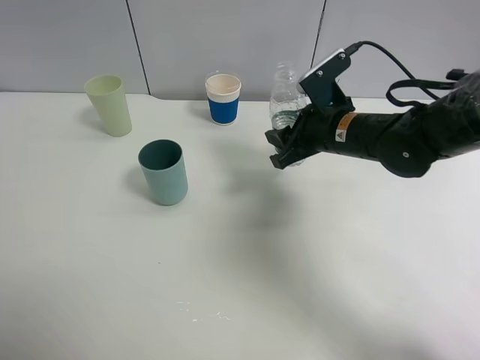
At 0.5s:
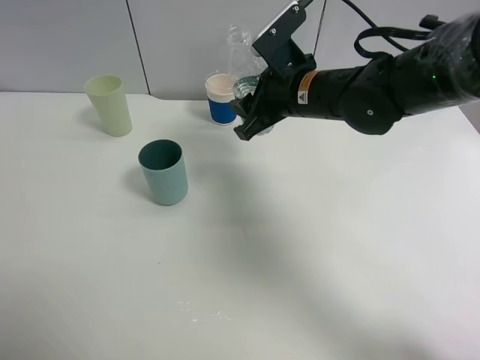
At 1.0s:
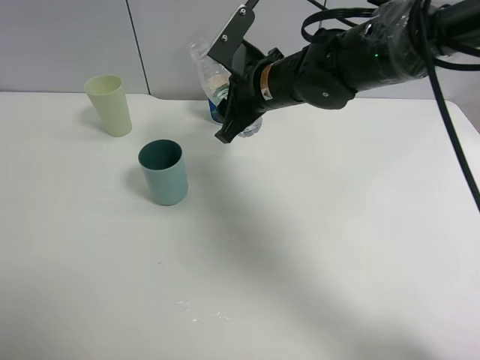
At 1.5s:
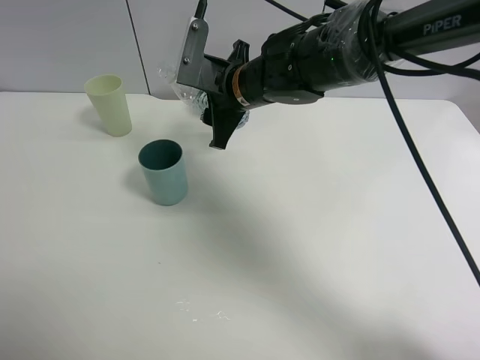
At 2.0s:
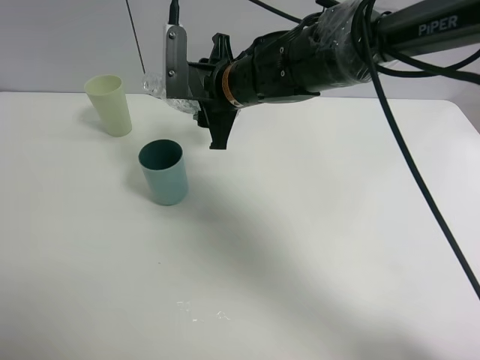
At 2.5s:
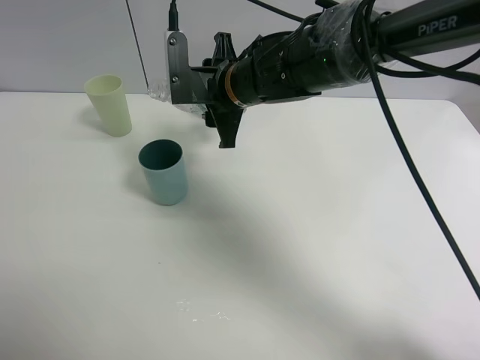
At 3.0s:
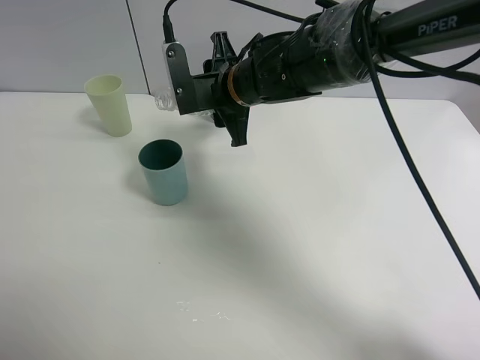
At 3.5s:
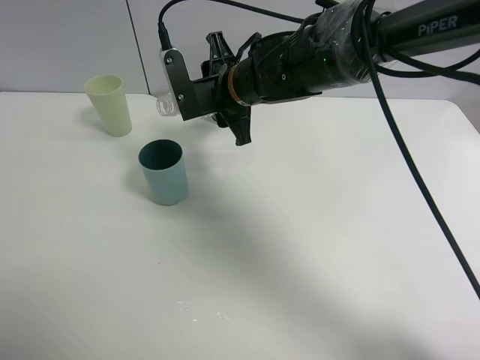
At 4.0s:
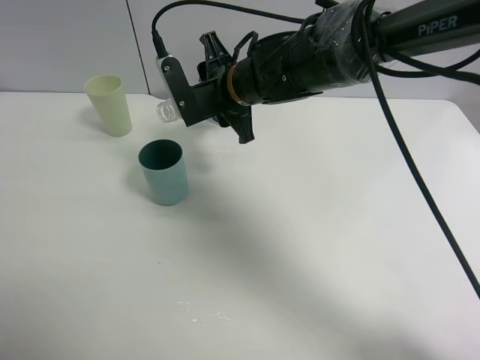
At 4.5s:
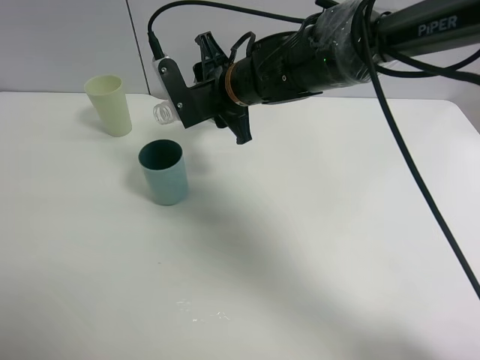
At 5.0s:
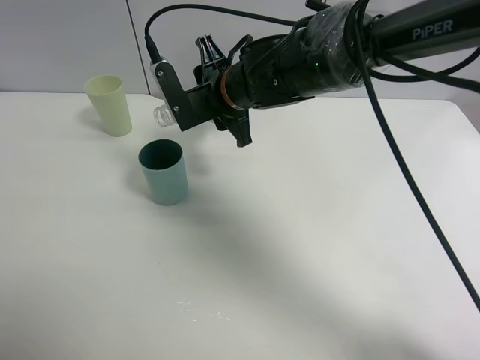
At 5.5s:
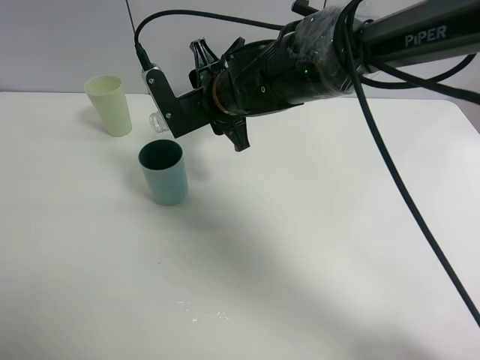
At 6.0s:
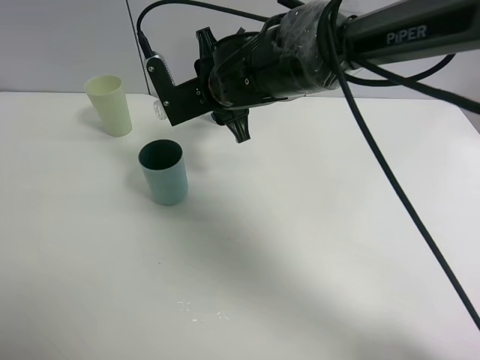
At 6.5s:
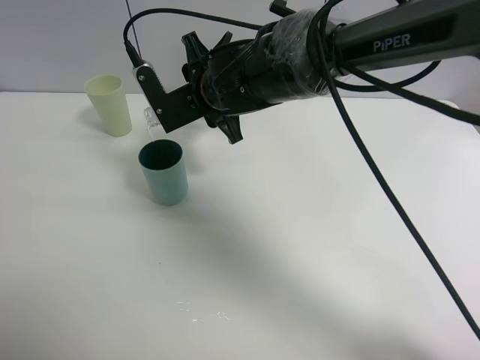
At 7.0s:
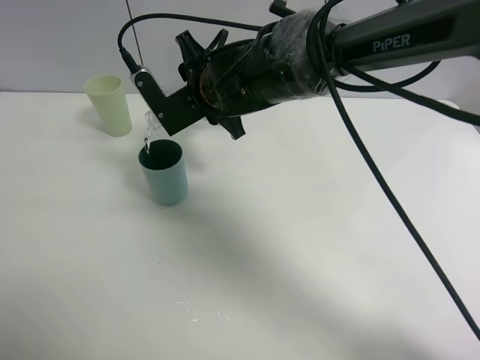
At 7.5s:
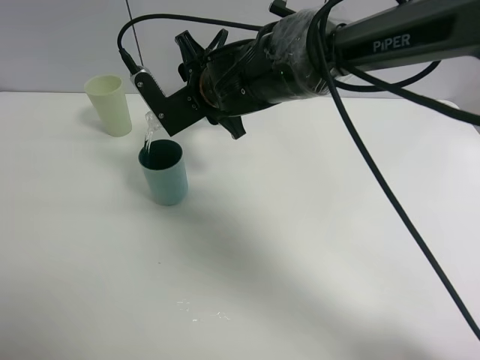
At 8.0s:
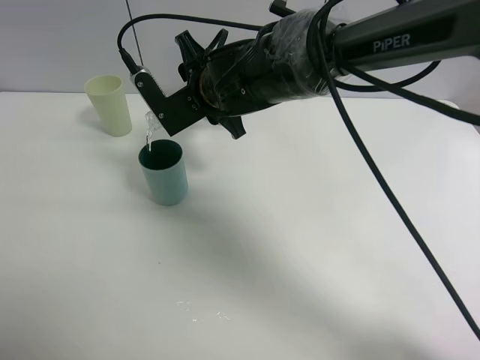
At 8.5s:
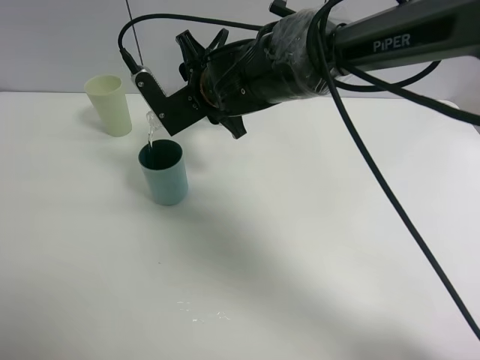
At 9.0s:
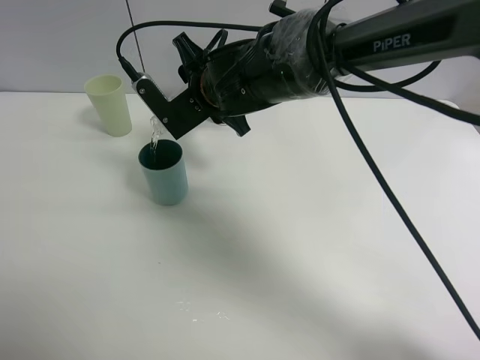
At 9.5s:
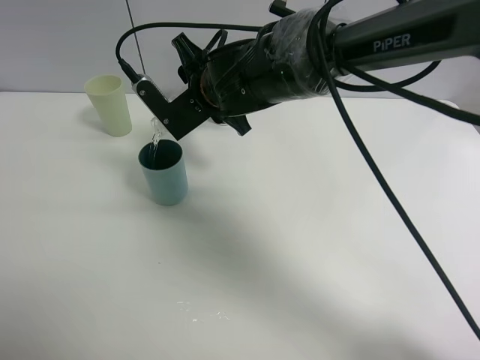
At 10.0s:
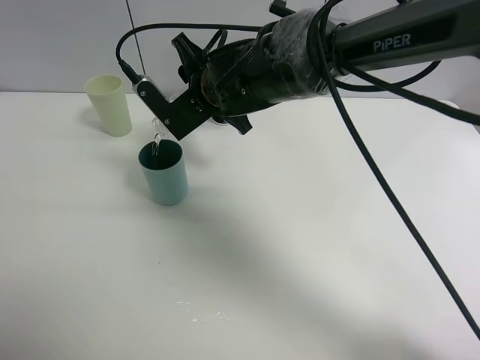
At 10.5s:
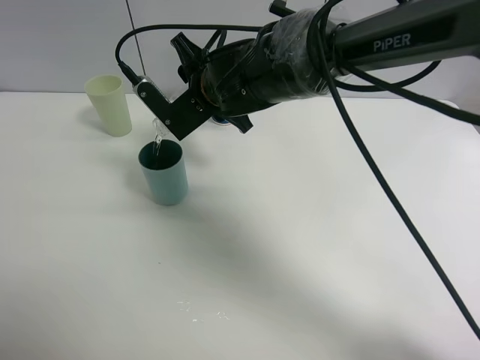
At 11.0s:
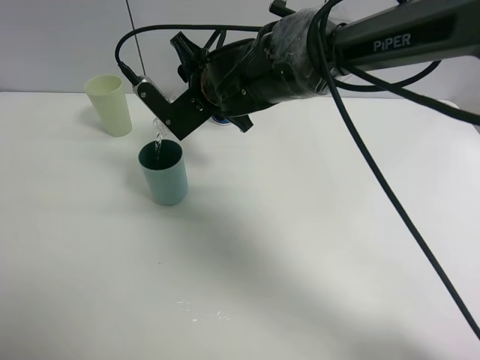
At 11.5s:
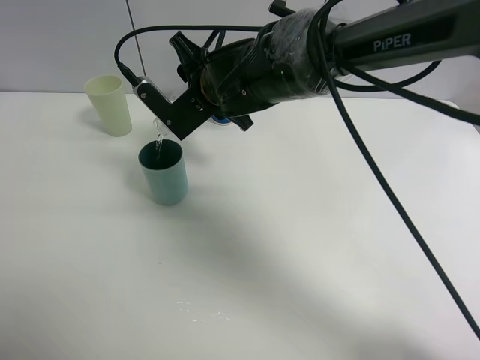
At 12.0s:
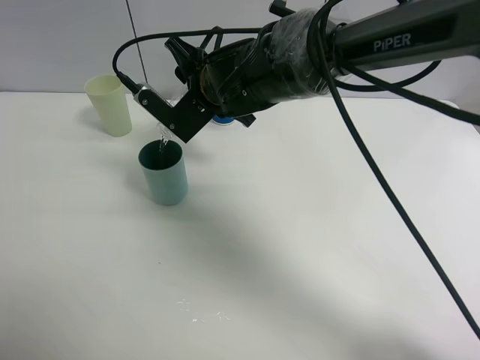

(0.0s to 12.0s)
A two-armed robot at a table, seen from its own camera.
Task of the whole recording: use a clamp to hold the bottle of the drink, pour the beverage into a random cup, then clamp the cup containing the drink and pour the drink into another random cup.
0.0s - 2.0s: The right gripper travels to the left by roughly 15 cm.
4.0s - 10.0s: The grippers move only a little.
10.0s - 12.0s: The grippers make only small movements.

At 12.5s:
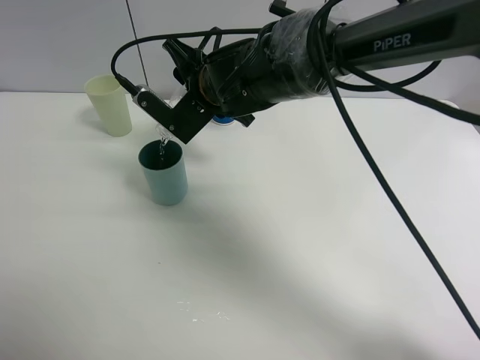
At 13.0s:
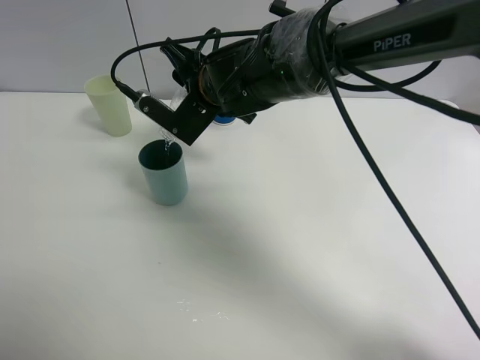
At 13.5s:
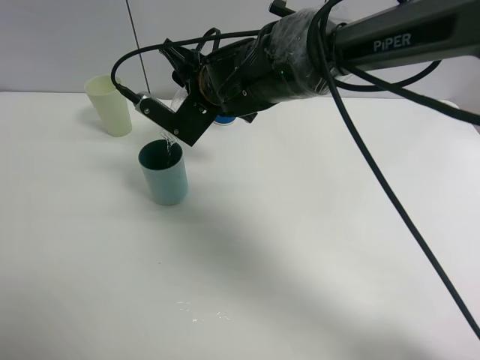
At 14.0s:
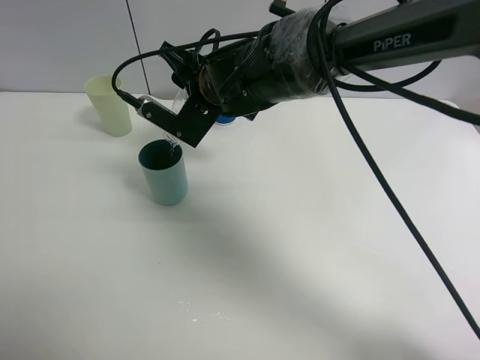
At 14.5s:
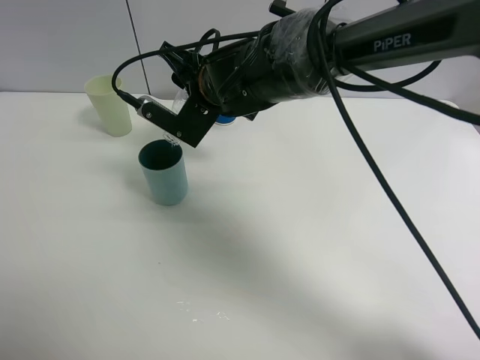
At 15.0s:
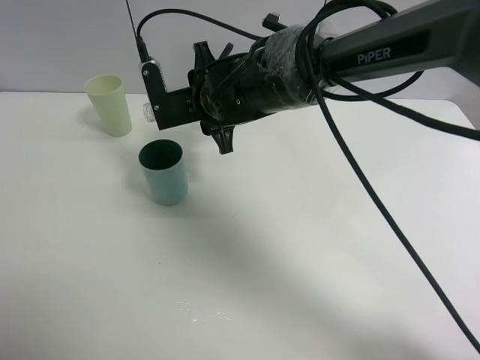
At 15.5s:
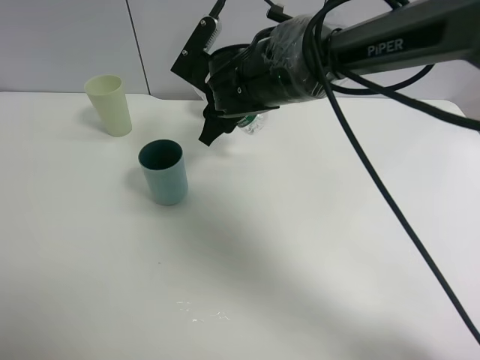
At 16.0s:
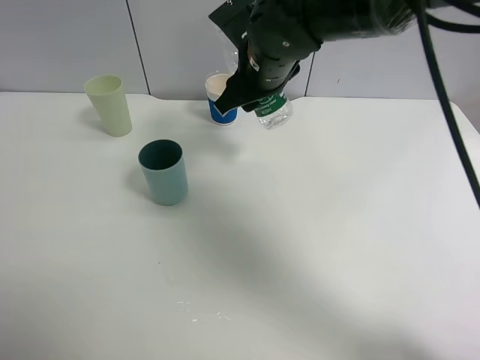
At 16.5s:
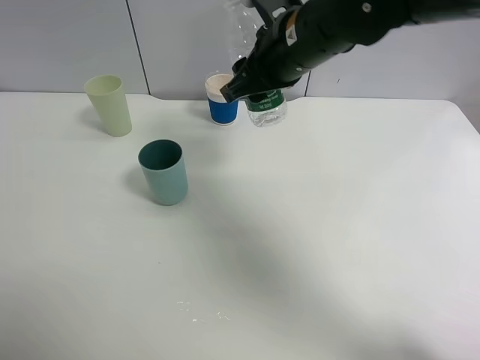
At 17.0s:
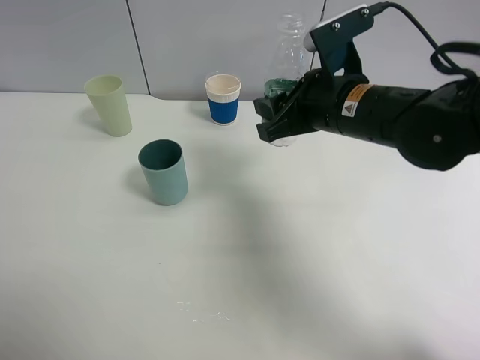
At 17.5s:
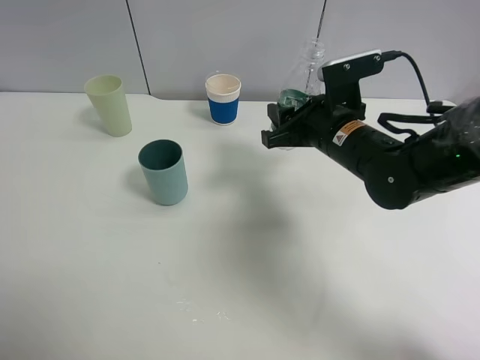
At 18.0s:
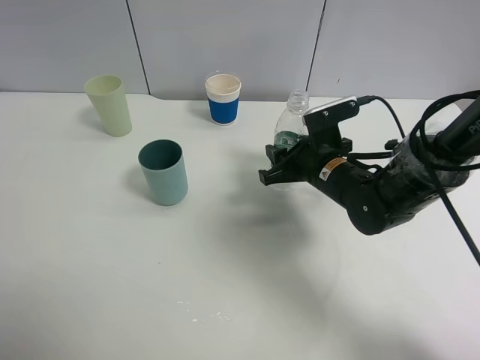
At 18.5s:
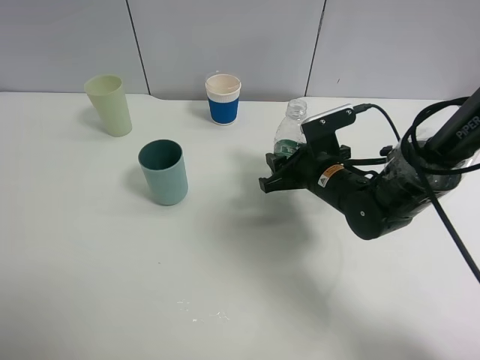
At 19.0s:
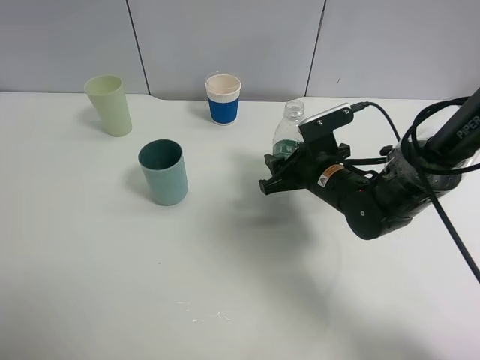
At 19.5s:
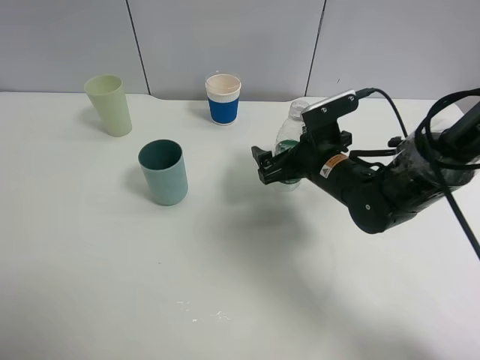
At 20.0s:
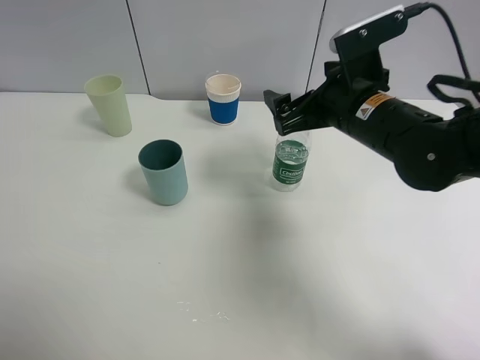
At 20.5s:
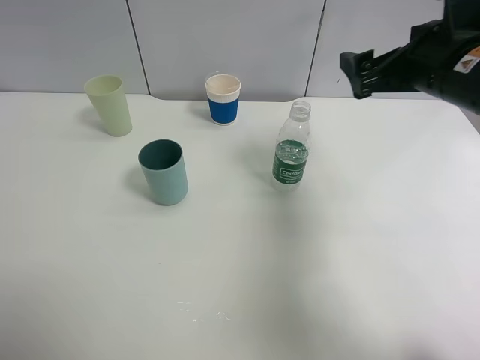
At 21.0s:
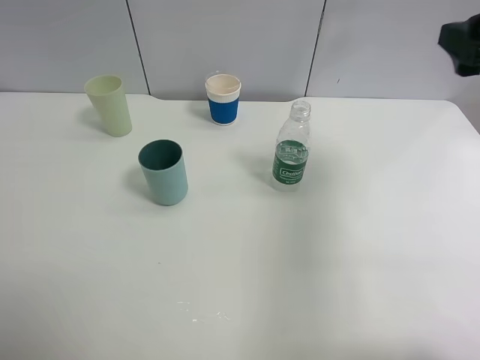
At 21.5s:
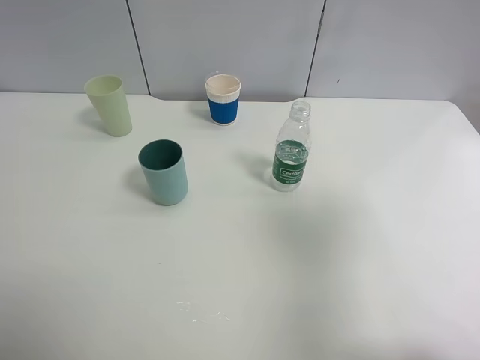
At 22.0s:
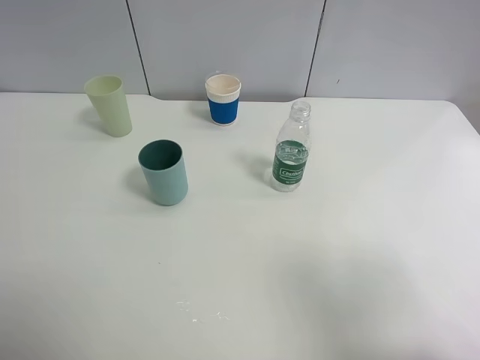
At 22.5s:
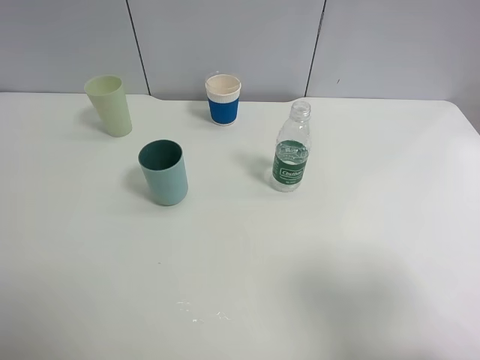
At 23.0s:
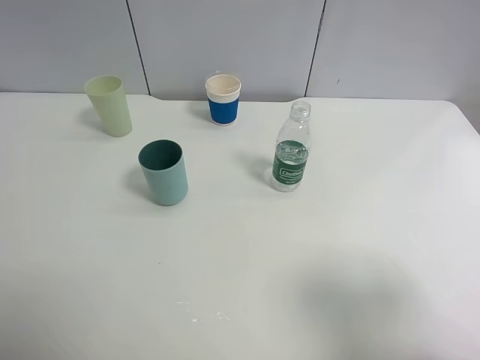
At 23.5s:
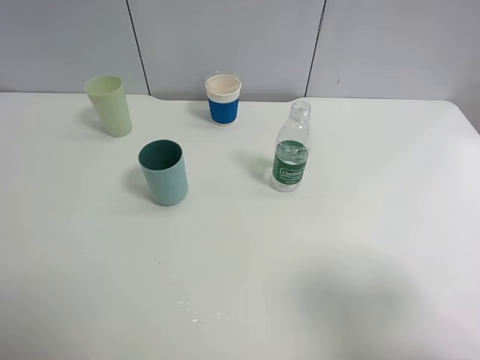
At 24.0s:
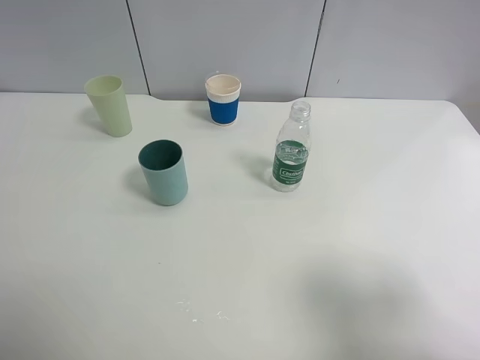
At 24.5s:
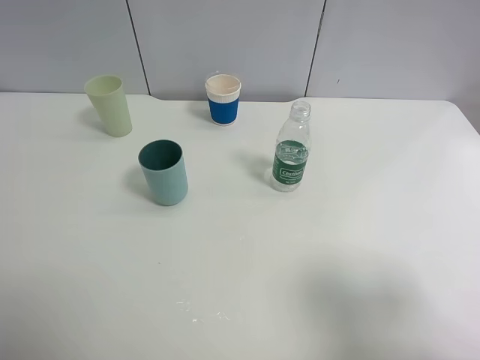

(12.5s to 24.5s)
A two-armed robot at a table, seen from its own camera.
Task of the whole recording: use a clamp to hold the bottle of the drink, pour the beverage into a random cup, then clamp the cup containing the drink and pour the drink into another random cup.
Step, 12.5s - 15.0s: Pour water into the blue plastic cup with right gripper.
Step, 15.5s - 19.5s: Place the water bottle on the table with right gripper.
12.5s - 14.5s: The grippers make only small movements.
14.5s - 16.5s: The right gripper moves to the right and upward, approximately 10 cm.
16.5s - 18.5s: The right gripper shifts some 20 cm downward.
18.5s - 20.5s: The right gripper travels upward and to the right by roughly 20 cm, and opens its fingers.
20.5s - 22.5s: The right gripper heads backward, covering about 25 cm.

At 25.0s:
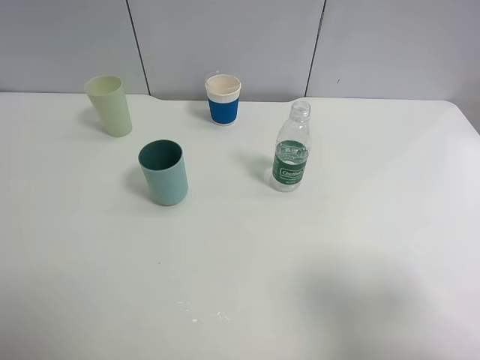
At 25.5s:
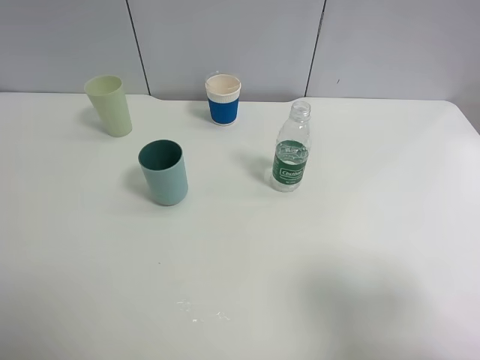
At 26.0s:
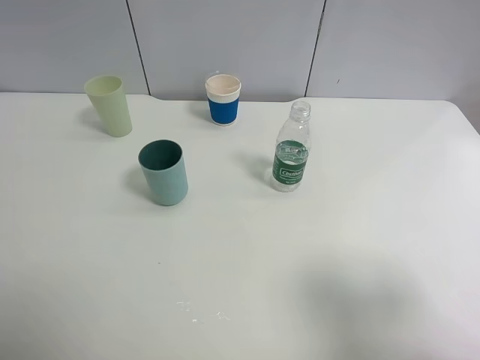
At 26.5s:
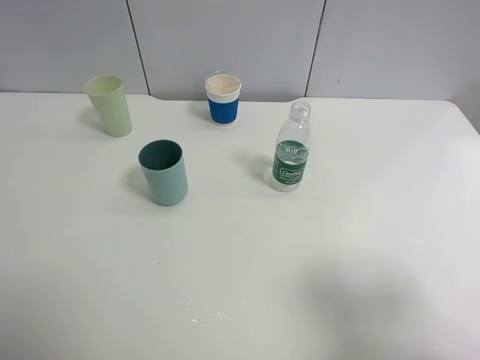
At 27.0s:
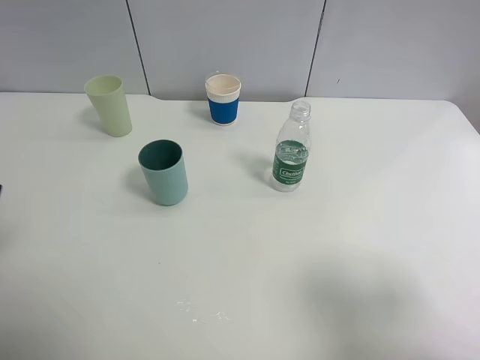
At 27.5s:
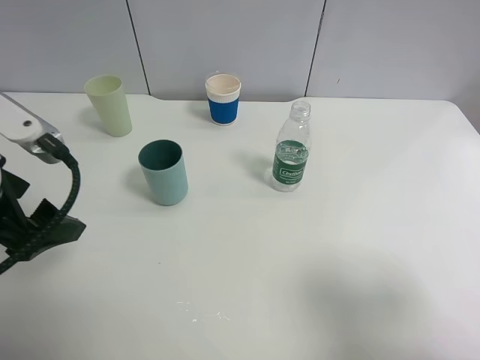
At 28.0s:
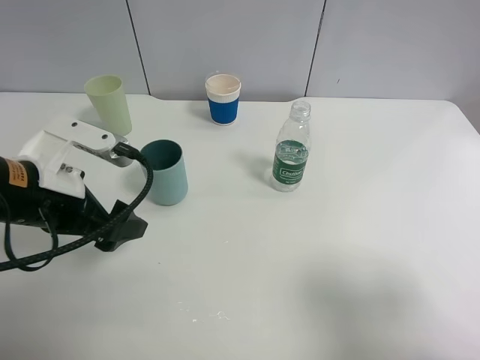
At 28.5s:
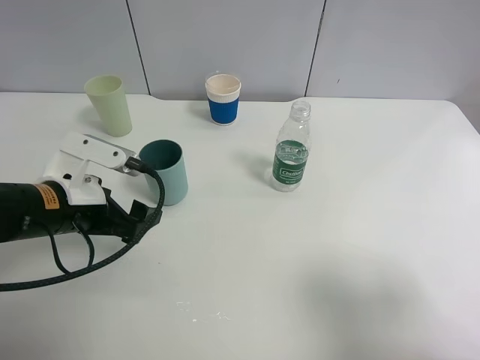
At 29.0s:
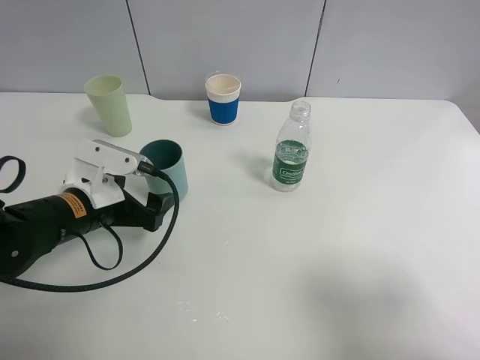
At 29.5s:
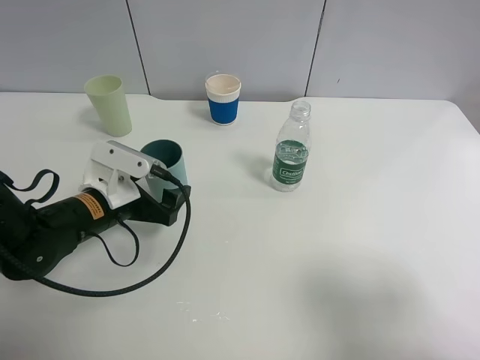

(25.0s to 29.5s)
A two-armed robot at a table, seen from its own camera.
Task of the whole recording: use a clamp to hold the bottle of the drink, pour the beverage into a random cup, then clamp the cup containing the drink and pour the drink into another random cup.
27.0s - 29.5s: The left gripper moves downward, forward and to the right, approximately 25 cm.
